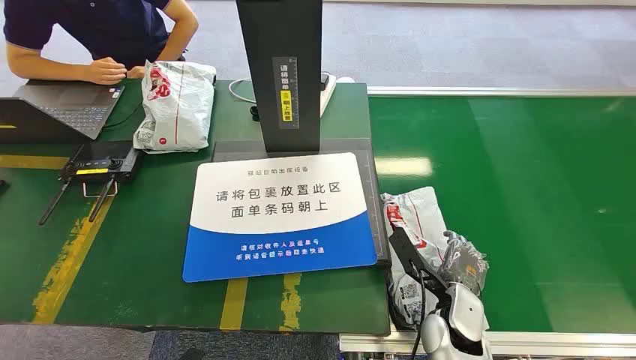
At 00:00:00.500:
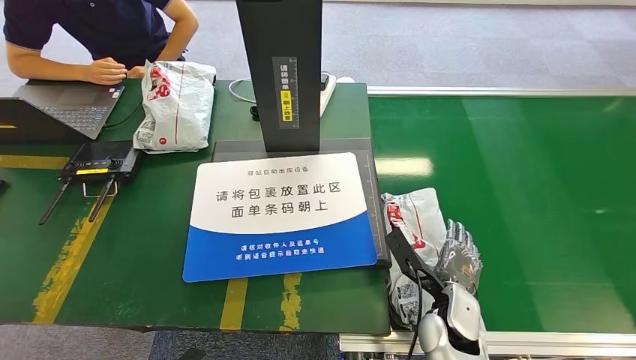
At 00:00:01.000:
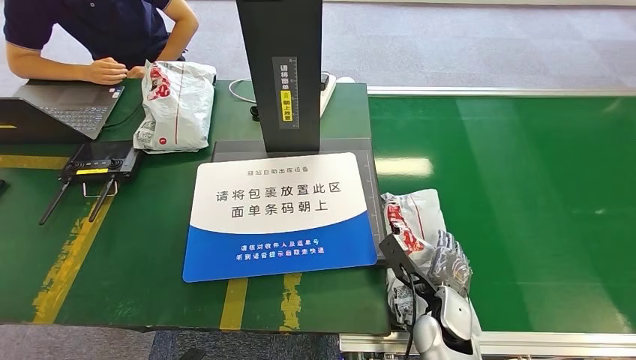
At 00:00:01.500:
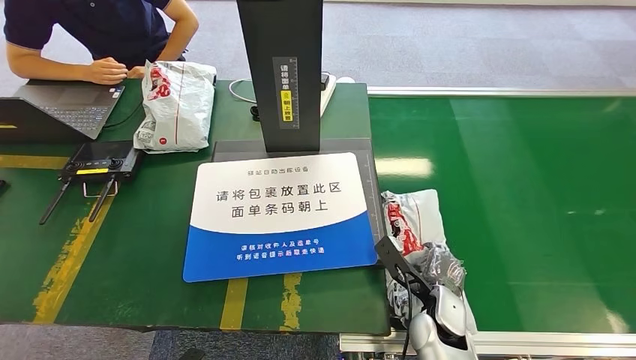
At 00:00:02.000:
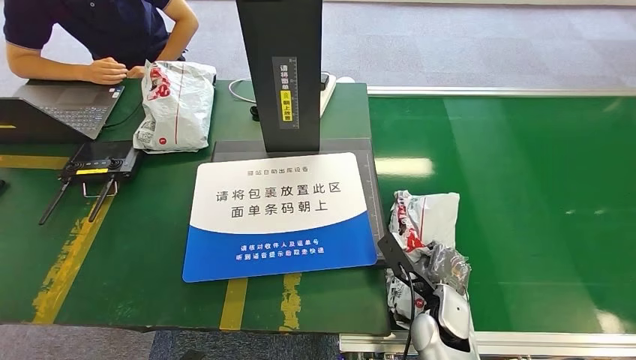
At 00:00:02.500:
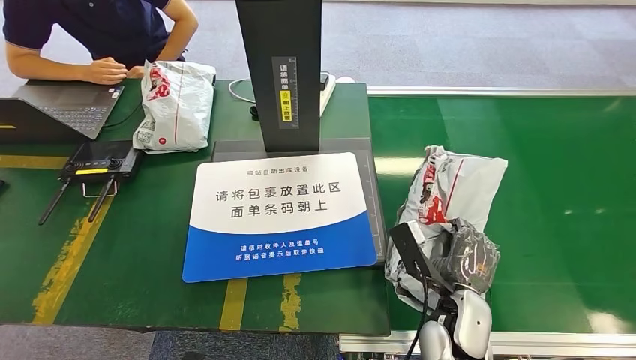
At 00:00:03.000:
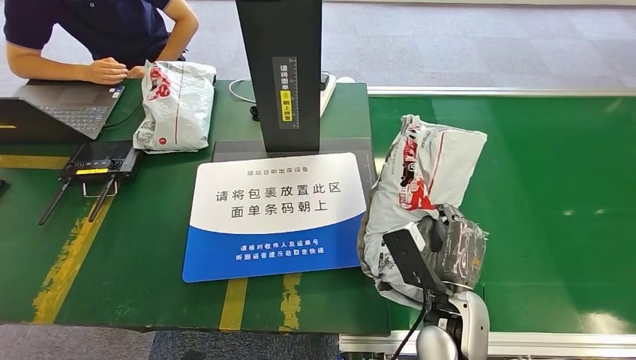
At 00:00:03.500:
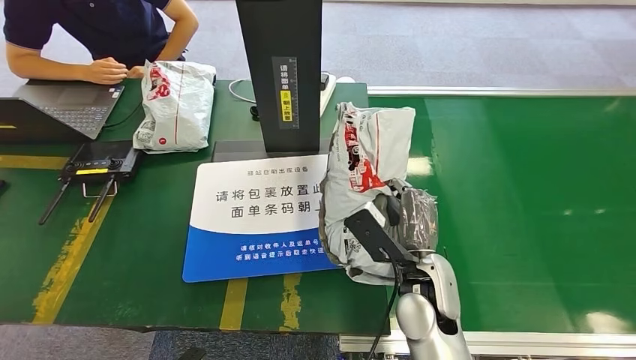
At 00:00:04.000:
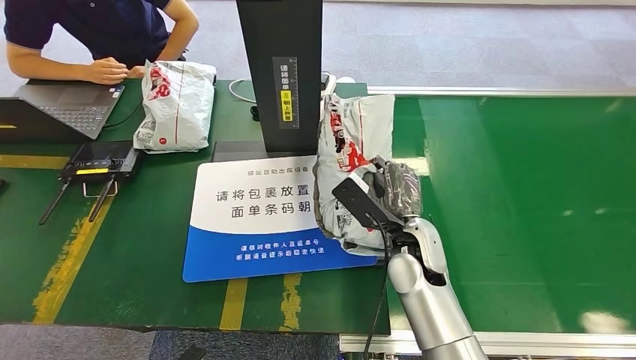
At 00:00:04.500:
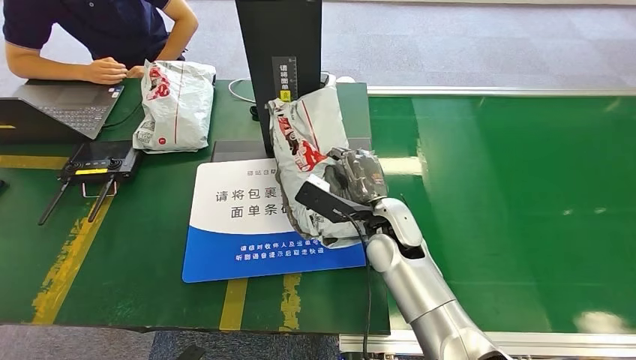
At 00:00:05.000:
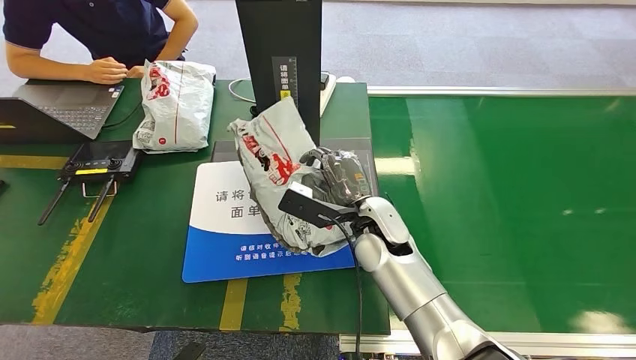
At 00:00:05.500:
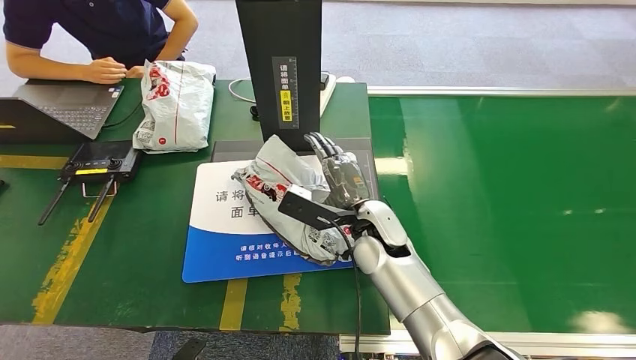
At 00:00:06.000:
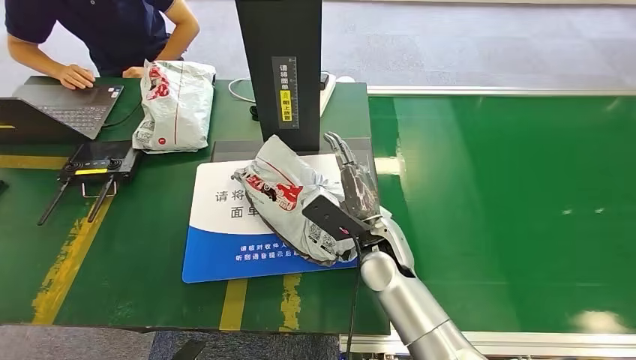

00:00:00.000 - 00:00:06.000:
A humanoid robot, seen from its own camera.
Step, 00:00:00.000 - 00:00:03.000: Pick up the package from the conveyor belt.
Step, 00:00:03.500 - 00:00:05.500: Place the package onto the inbound machine.
00:00:02.000 - 00:00:04.000: The right hand moves upward, forward and to the left, about 15 cm.
